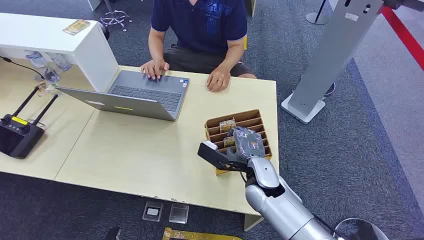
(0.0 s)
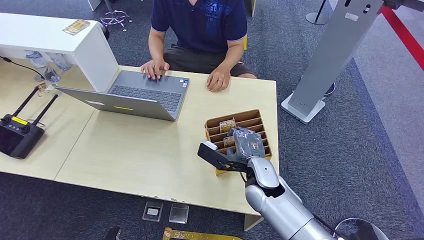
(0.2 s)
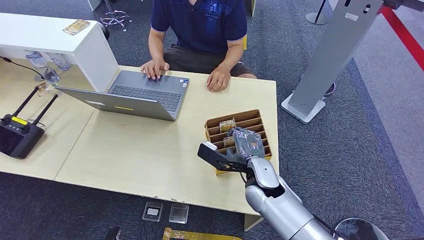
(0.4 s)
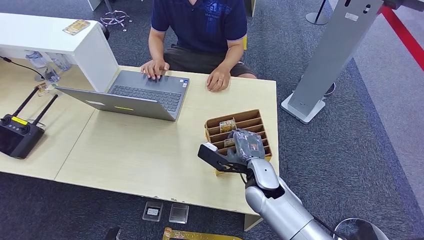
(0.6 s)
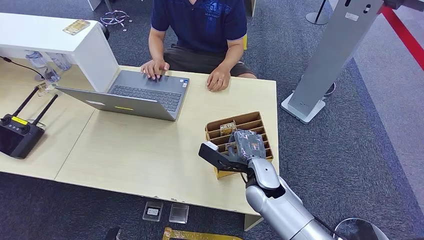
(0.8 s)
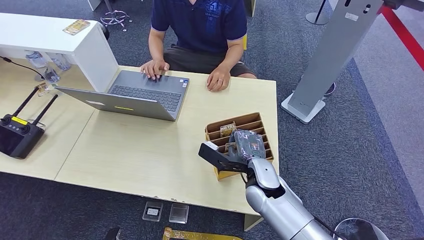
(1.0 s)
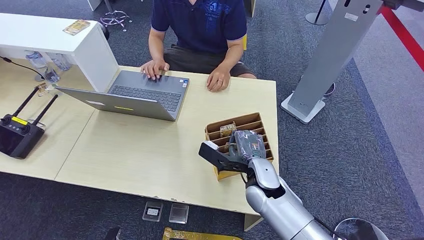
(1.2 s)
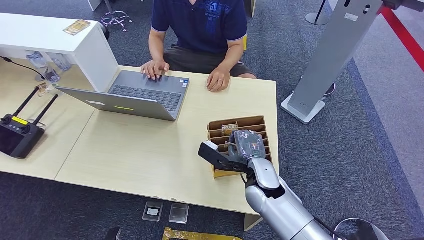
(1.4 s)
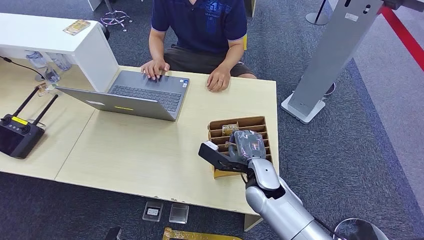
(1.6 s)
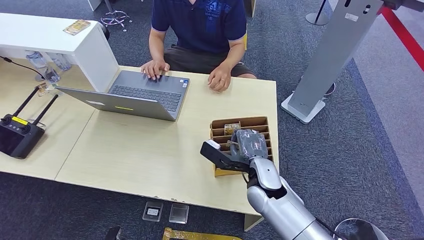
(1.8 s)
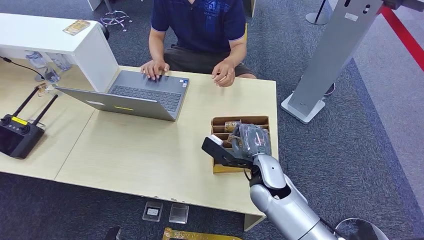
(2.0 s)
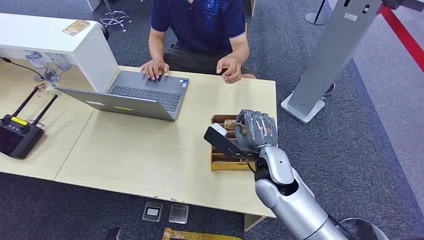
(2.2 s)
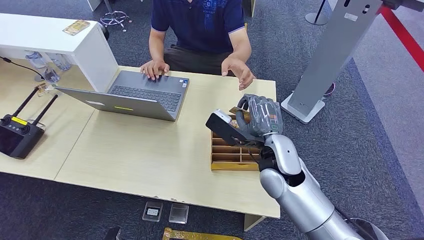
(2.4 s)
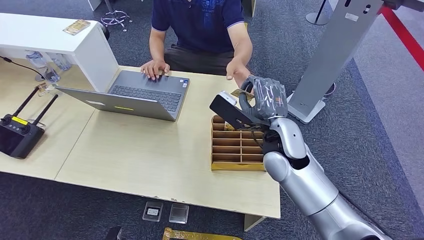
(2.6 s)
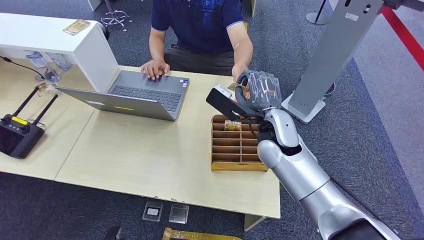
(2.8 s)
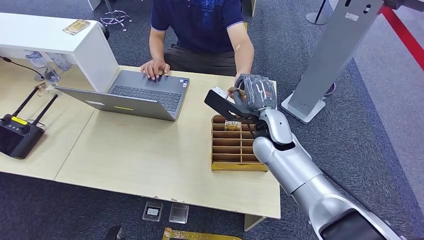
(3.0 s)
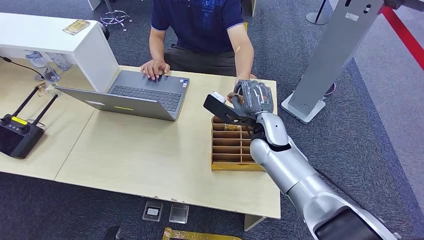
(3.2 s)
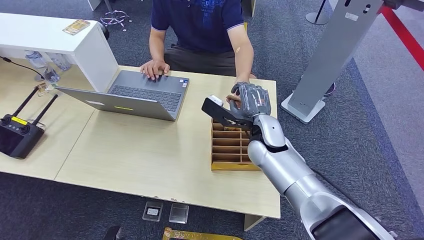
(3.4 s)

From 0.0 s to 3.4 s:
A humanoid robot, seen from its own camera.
Step, from 0.0 s to 2.0 s: Pick up the room card from the card holder.
Step, from 2.4 s to 3.4 s: Hand the room card to the target.
From 1.6 s to 3.4 s: The right hand moves forward and upward, roughly 10 cm.
